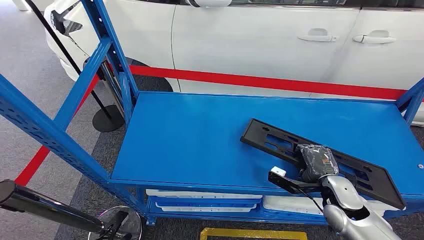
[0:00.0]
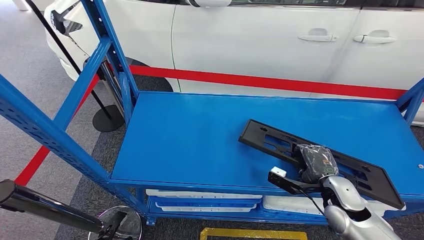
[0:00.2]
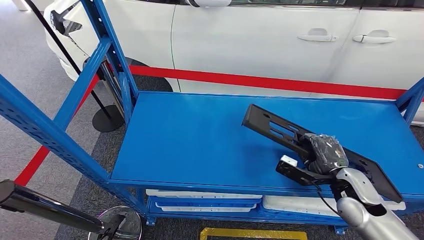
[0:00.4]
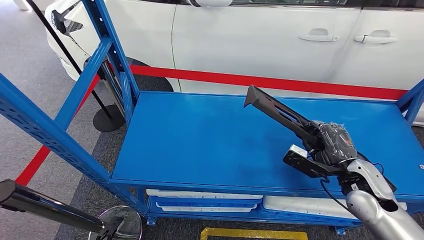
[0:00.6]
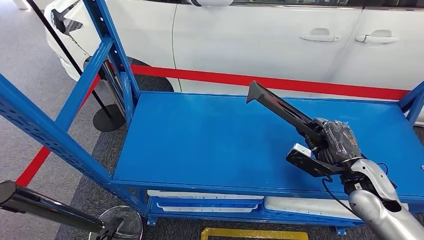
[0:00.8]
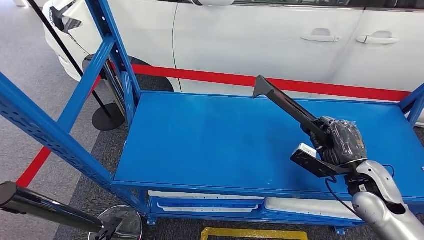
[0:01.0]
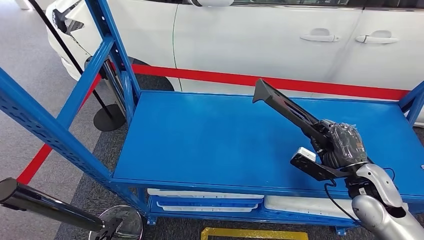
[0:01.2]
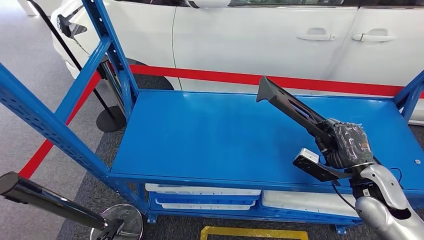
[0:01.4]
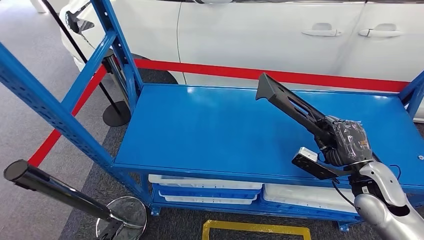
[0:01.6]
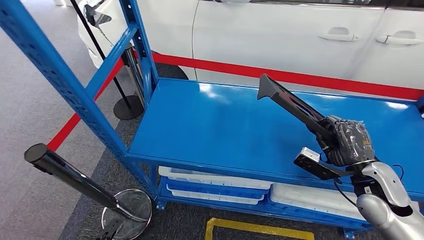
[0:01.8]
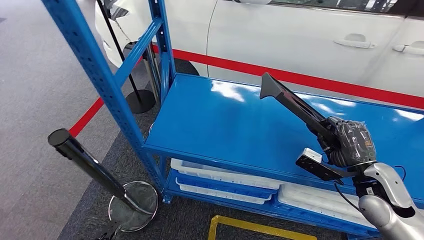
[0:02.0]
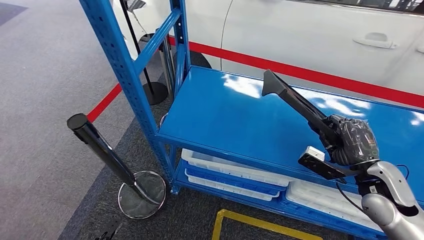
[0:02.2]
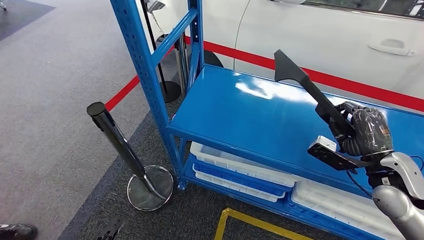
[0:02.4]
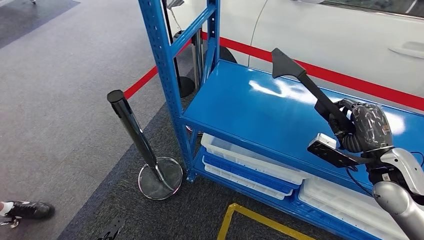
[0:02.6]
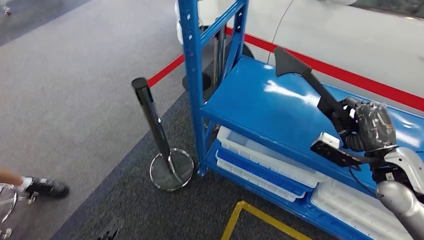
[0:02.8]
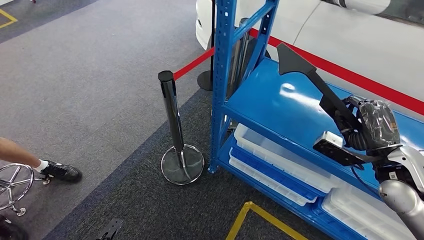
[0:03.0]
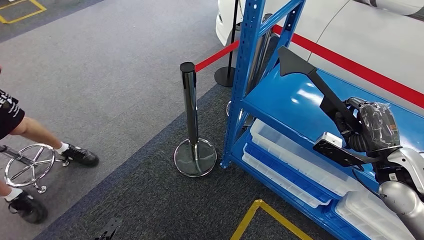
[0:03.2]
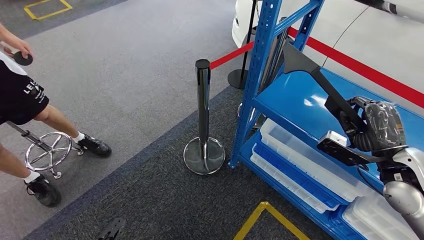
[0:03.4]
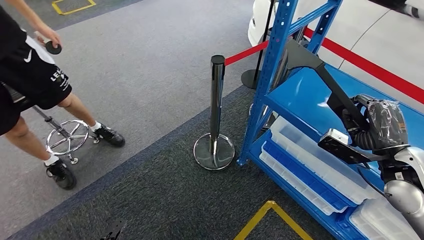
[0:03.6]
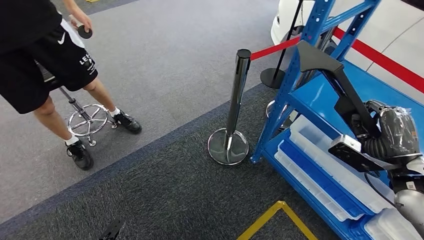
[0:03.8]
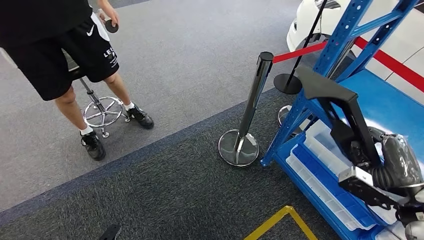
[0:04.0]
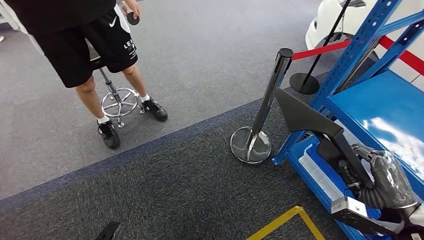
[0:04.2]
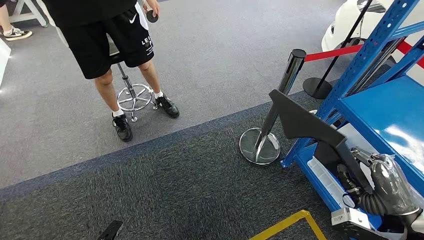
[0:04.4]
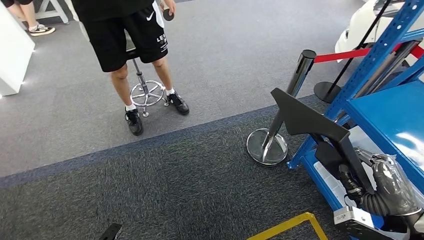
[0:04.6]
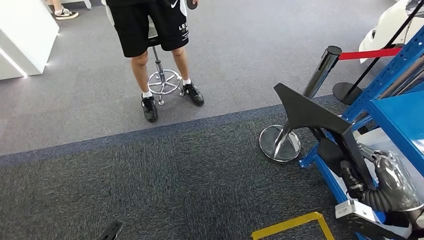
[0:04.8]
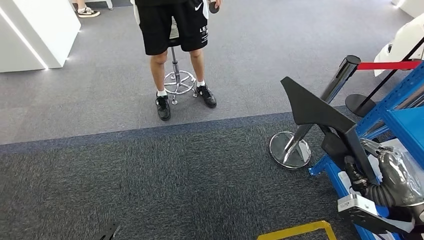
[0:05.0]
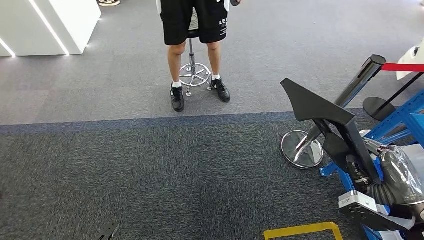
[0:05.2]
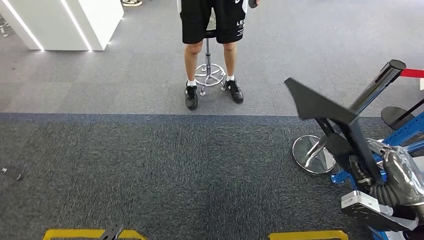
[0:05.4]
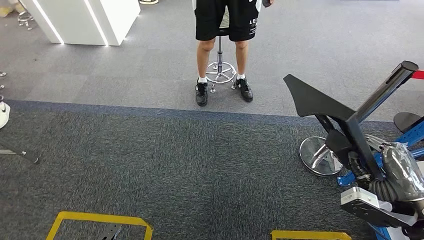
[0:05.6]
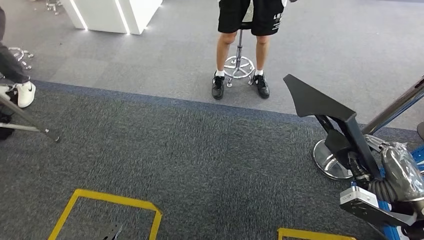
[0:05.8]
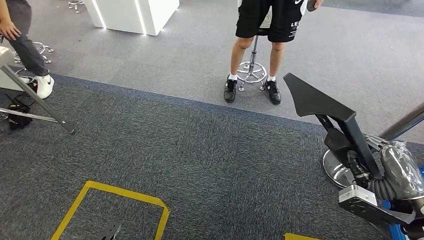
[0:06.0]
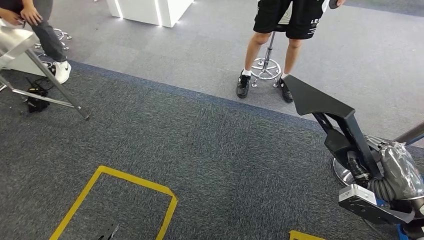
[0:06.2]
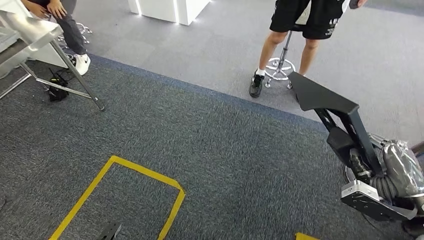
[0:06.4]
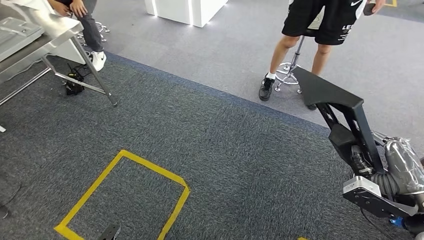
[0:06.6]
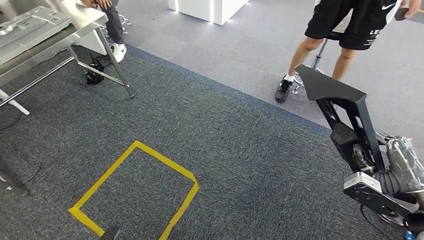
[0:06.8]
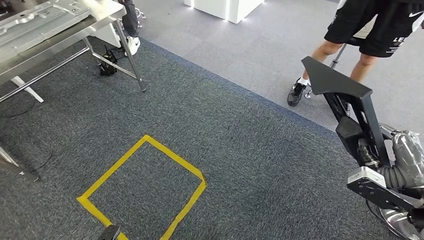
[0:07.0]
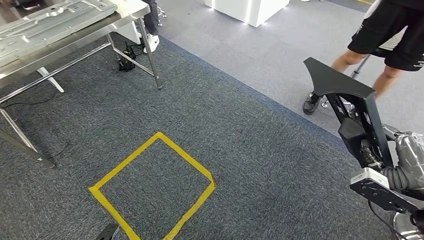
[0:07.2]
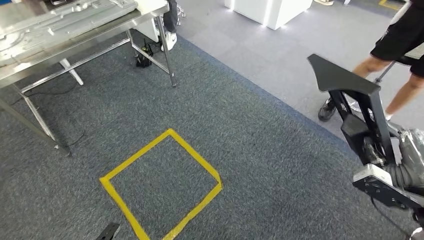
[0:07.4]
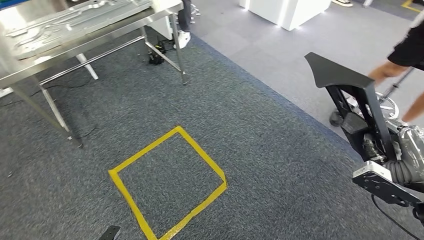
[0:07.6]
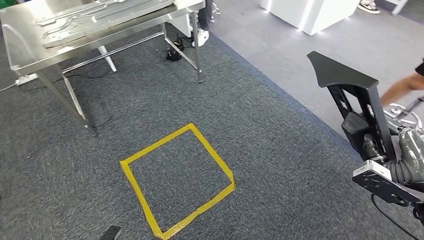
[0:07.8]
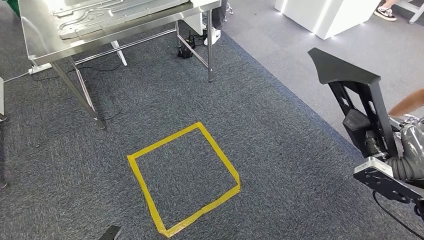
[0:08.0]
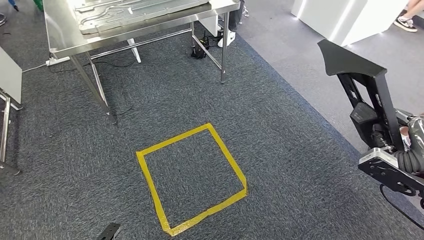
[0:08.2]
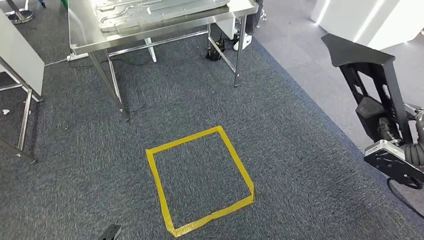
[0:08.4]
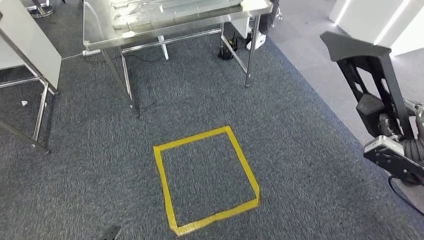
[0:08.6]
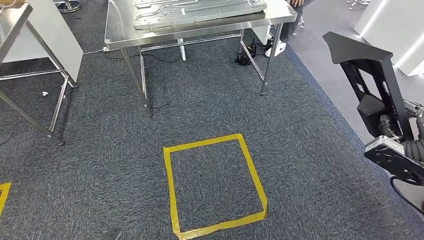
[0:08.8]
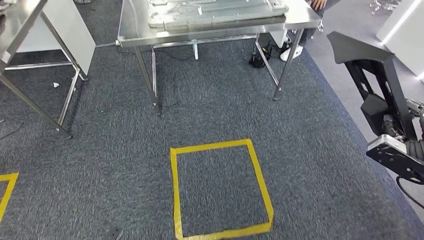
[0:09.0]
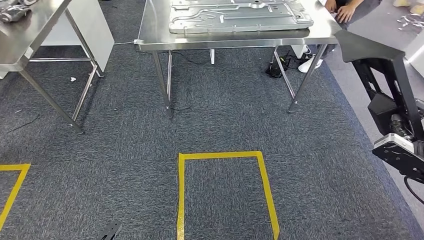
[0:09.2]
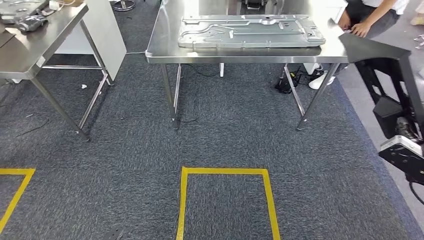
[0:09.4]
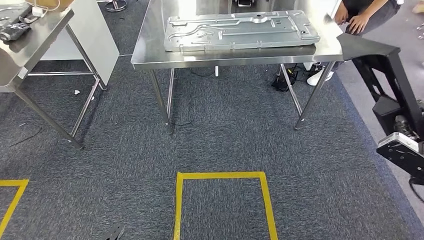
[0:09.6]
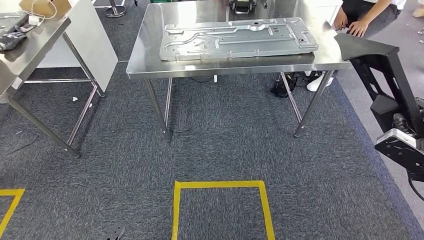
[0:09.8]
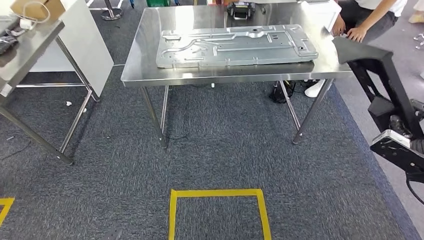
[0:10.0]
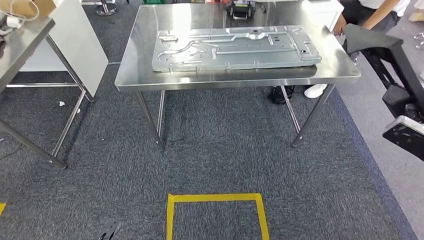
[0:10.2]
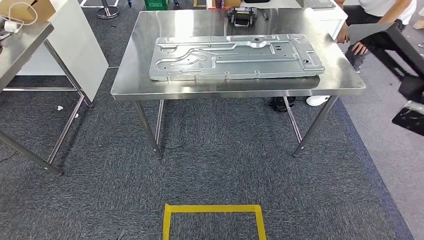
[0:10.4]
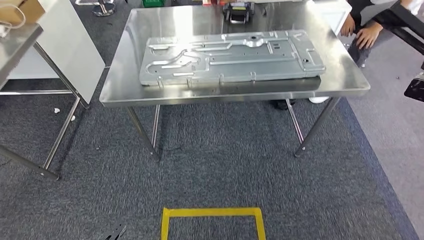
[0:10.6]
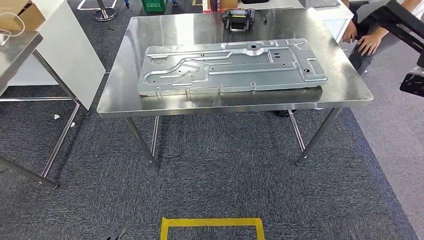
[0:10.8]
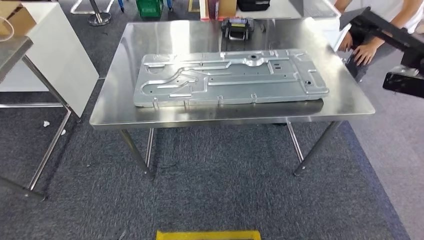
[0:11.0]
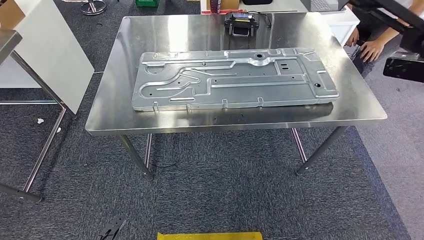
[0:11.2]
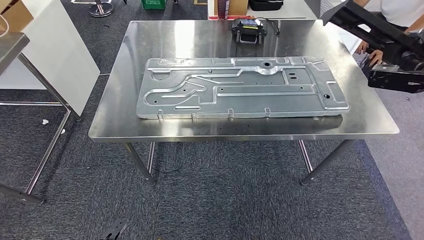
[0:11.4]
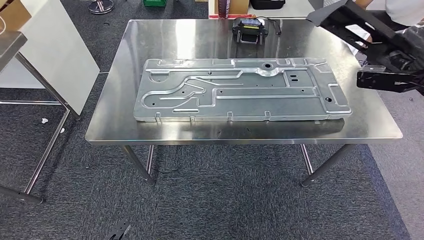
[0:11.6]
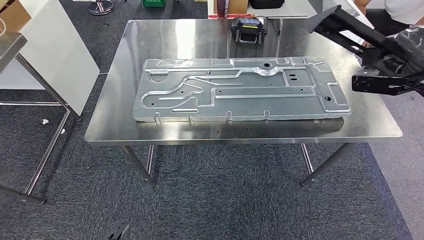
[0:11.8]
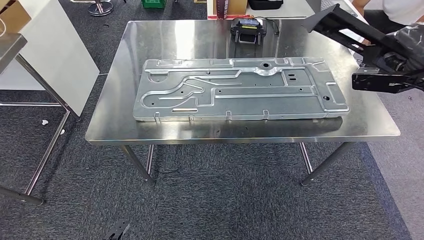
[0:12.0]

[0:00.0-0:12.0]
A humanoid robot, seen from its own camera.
Step, 0:00.0 to 0:02.0: Pick up the large material from the shelf.

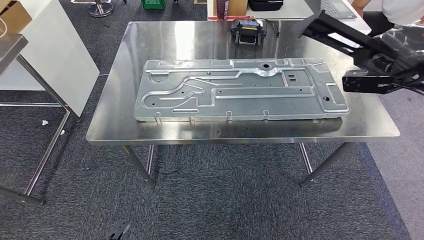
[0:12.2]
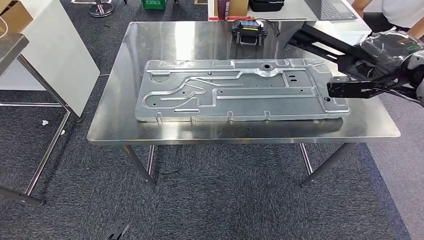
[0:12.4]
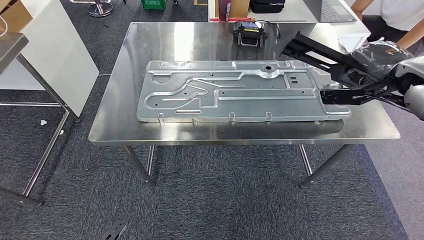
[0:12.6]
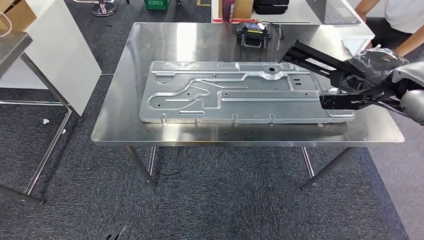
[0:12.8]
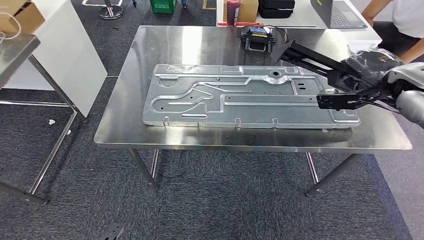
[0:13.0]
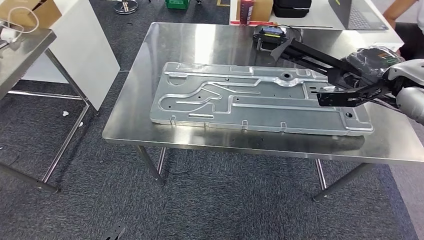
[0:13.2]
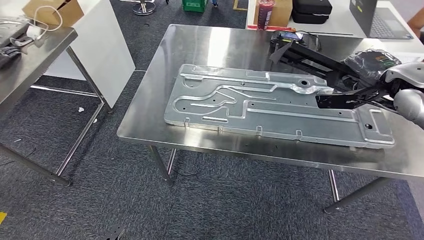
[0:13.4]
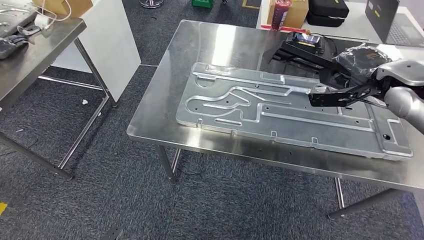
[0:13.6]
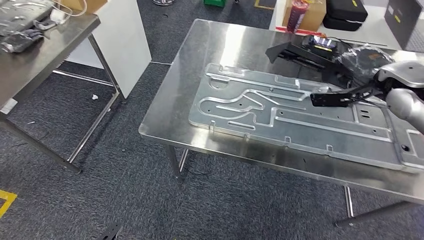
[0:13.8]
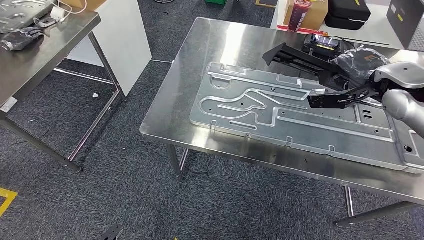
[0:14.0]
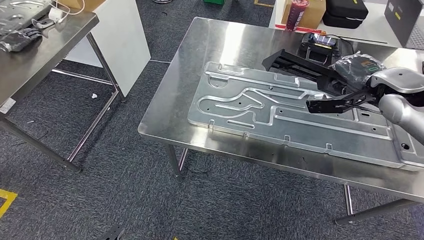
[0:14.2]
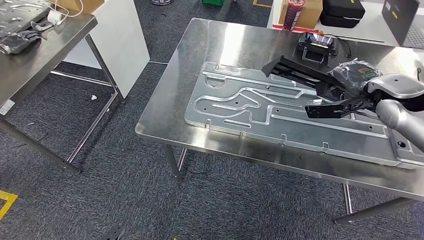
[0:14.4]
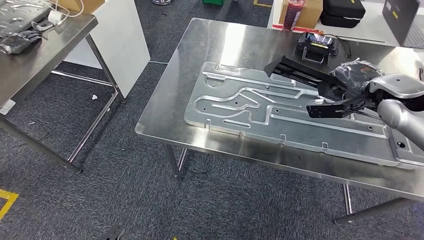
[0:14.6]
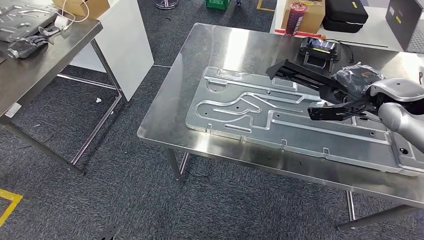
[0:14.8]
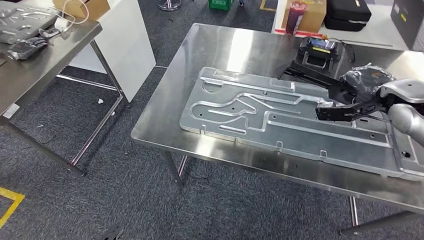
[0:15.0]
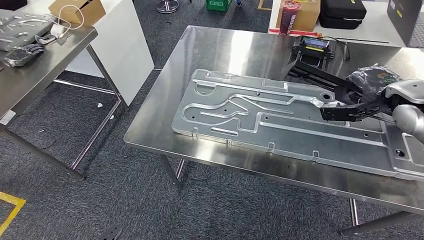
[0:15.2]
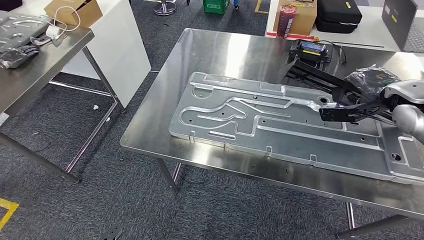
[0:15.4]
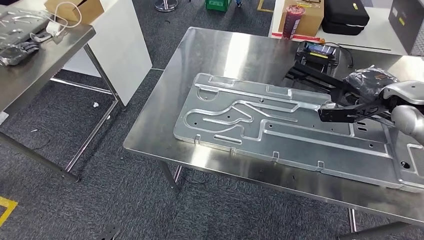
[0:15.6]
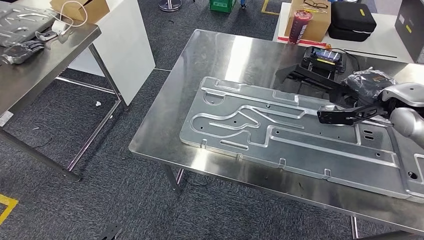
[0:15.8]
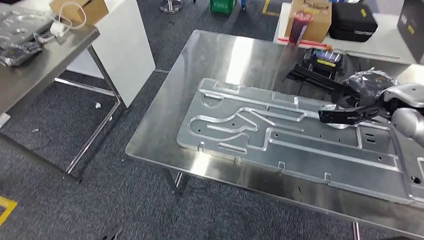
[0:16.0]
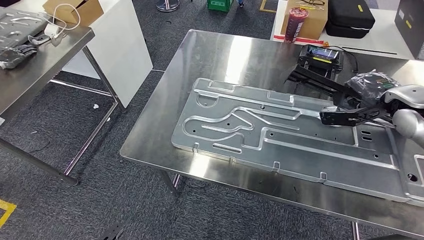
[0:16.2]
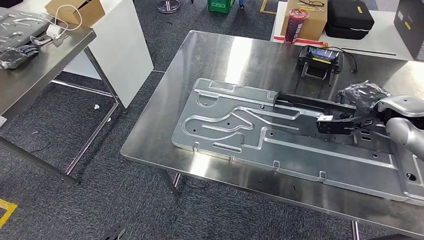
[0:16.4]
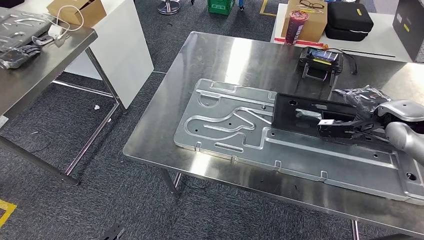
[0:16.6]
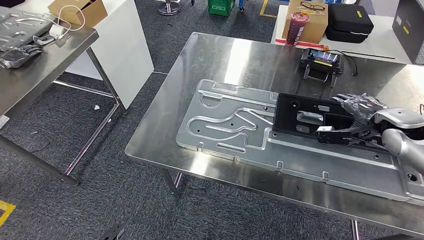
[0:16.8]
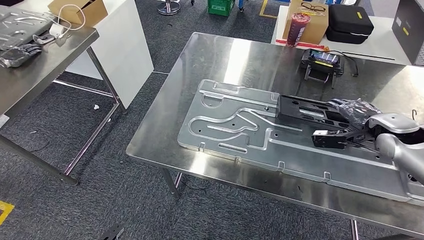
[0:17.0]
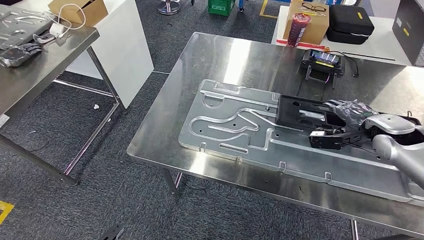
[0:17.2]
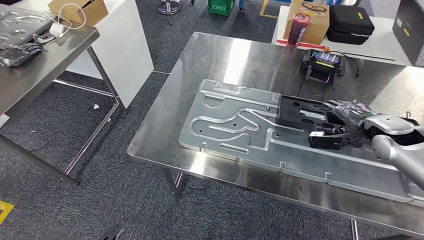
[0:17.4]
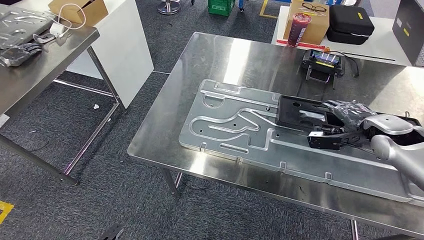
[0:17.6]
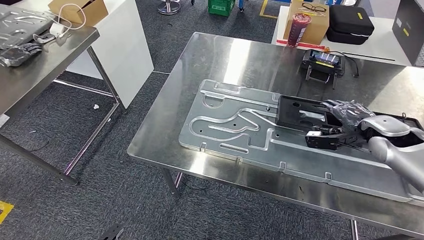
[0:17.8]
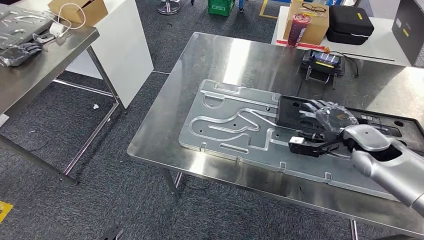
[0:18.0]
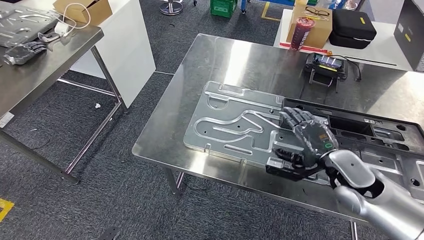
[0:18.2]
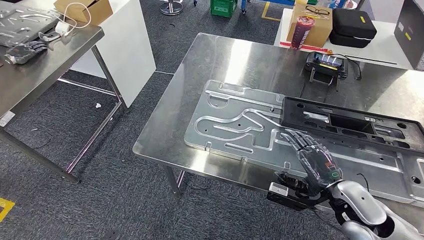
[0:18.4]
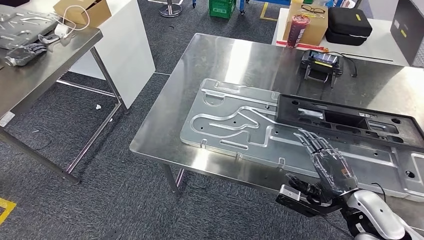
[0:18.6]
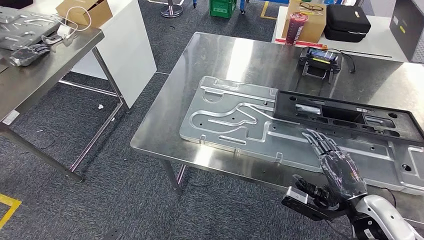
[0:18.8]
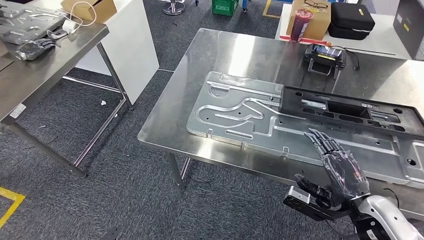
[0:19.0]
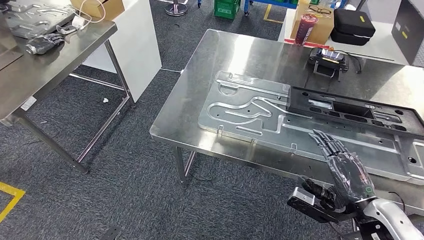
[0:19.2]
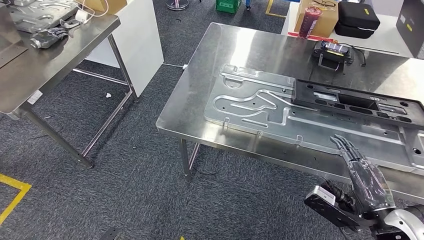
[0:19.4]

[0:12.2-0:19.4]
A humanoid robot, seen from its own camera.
Step, 0:14.0 to 0:17.6: Insert the large material into the corresponding slot on the workbench.
0:16.6 to 0:18.0: The right hand goes about 10 cm downward and to the left.
